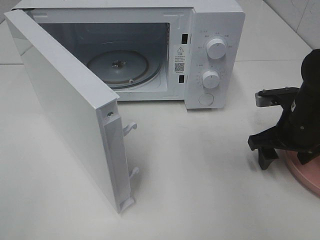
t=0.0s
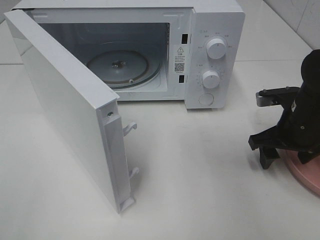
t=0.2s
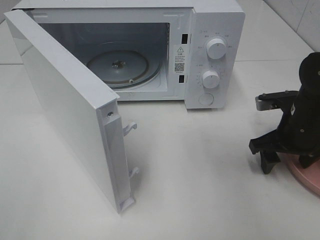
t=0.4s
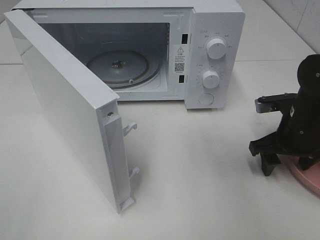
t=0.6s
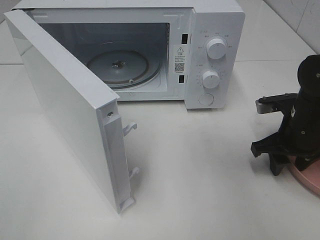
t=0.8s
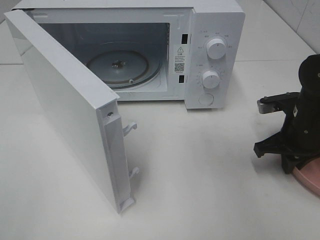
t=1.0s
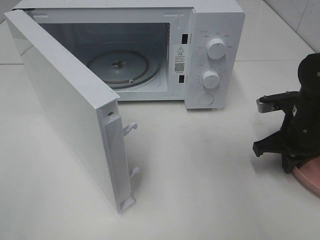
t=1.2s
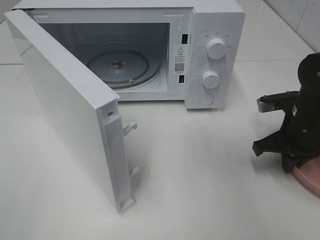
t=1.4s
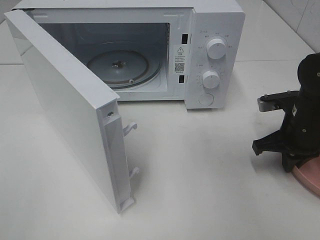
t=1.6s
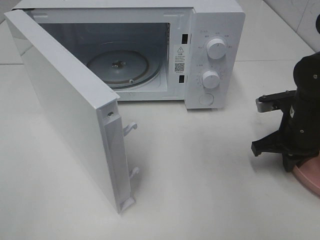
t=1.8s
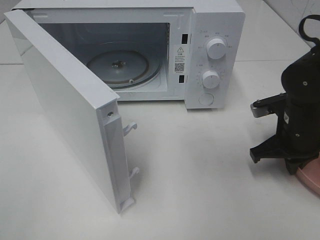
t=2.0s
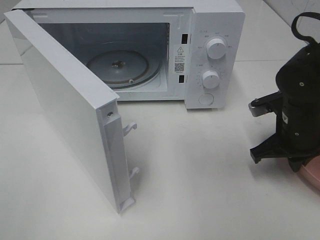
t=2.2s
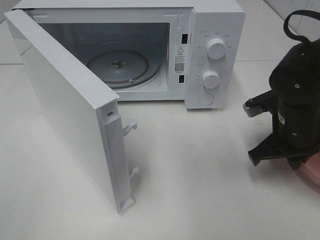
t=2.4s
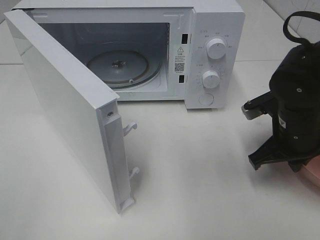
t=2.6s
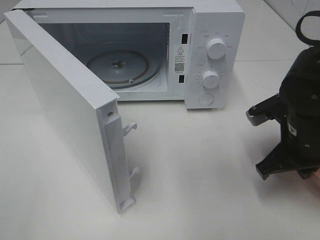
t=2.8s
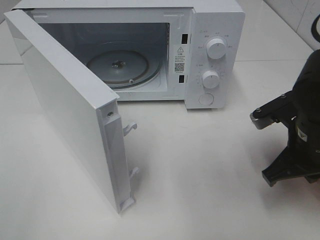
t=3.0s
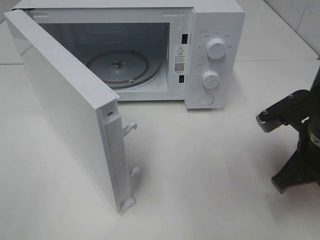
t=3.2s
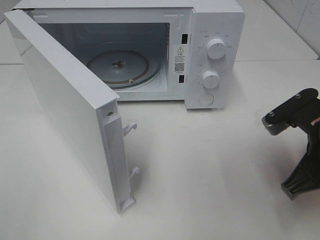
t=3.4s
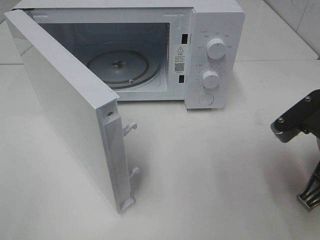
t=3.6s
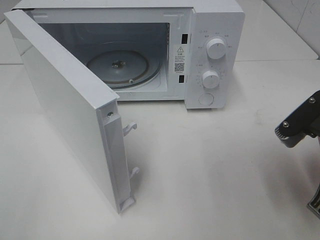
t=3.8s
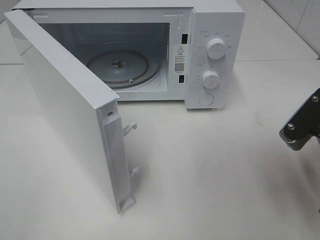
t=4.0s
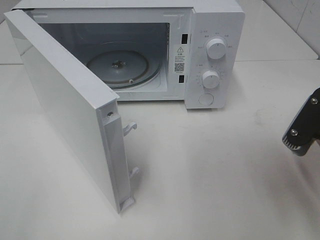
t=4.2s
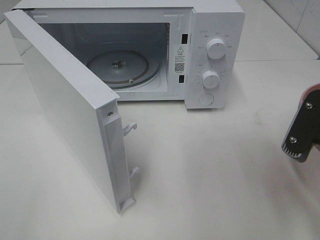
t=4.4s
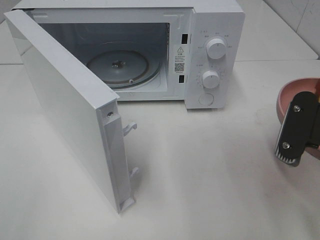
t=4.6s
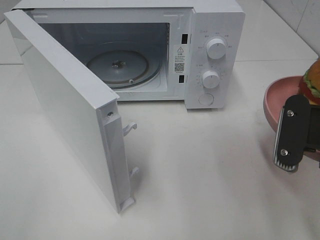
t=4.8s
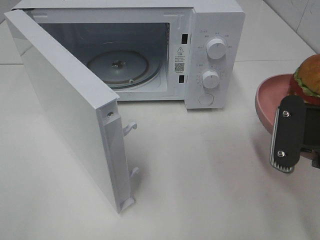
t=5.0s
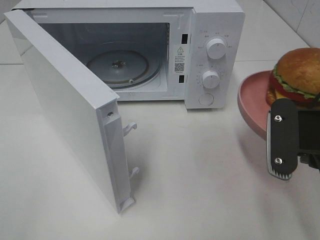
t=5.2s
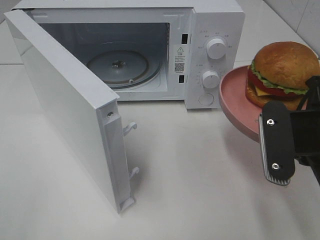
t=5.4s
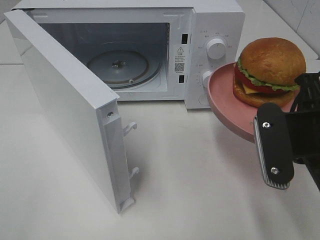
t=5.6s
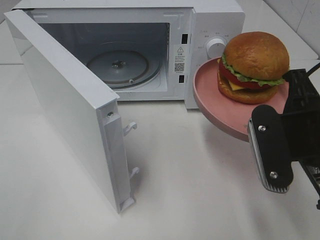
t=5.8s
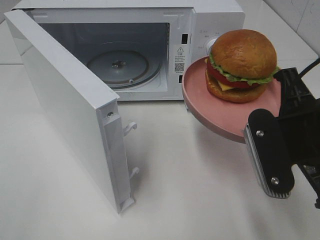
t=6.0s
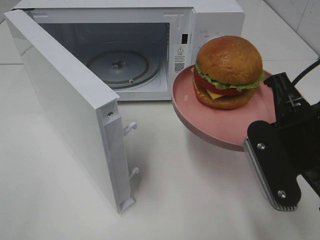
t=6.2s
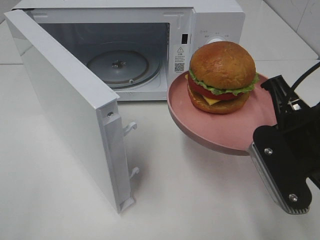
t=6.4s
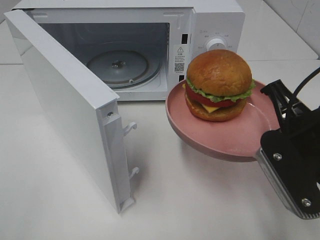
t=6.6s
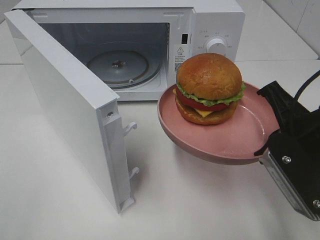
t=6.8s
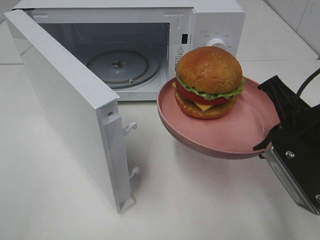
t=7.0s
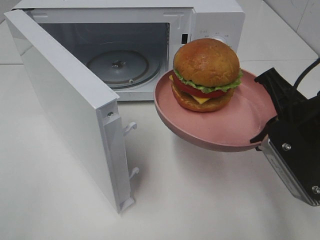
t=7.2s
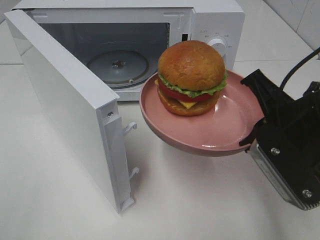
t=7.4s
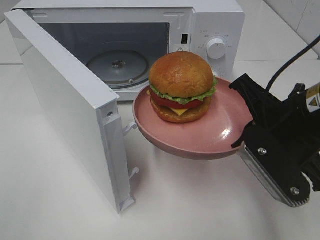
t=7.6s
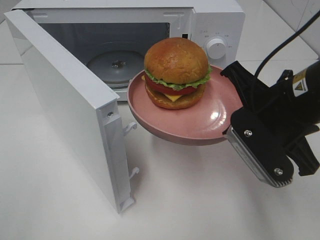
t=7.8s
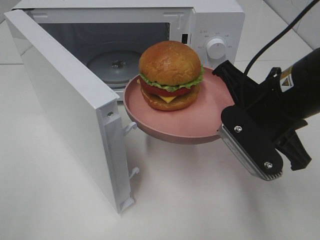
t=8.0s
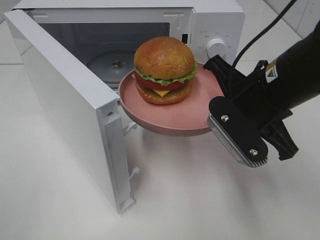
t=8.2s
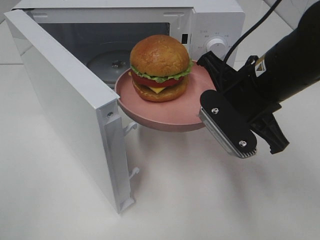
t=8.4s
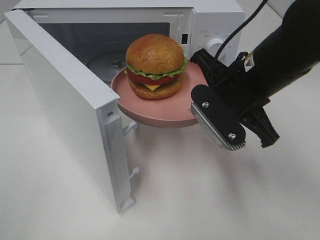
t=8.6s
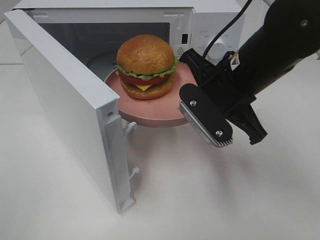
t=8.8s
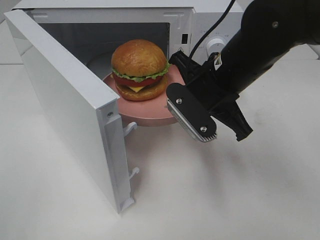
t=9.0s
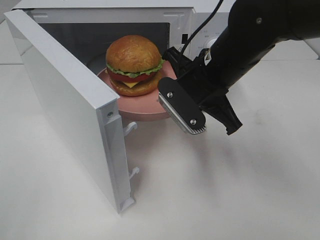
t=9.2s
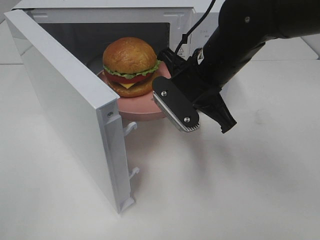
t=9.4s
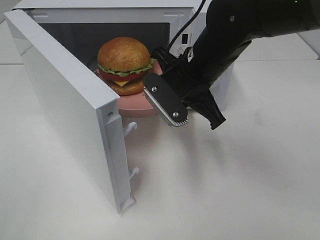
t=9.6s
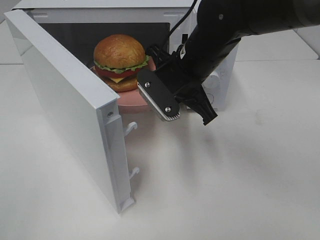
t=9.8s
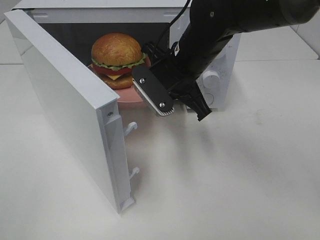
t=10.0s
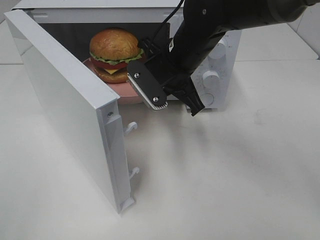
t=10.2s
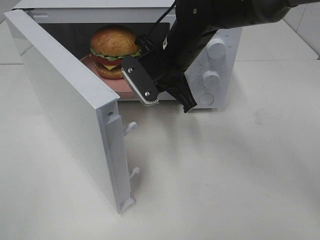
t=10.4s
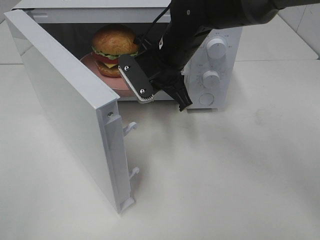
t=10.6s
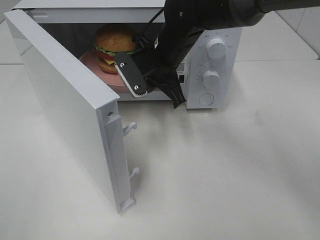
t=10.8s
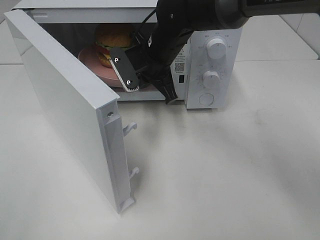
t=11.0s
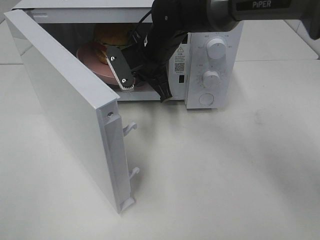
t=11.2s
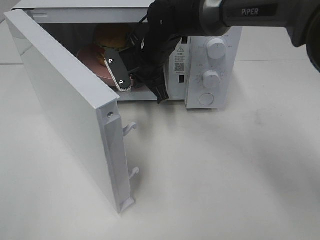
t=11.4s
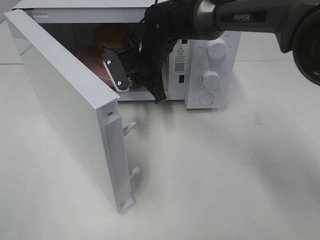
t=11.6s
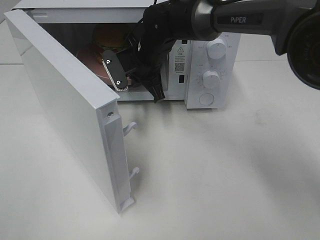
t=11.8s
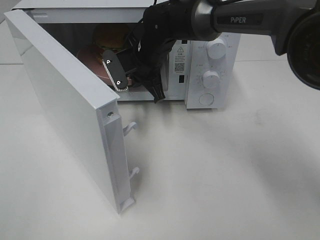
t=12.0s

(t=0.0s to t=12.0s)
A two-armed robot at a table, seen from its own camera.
Task of the whole recording: Heat the burger.
t=0.0s - t=1.6s: The right gripper closes its fingers.
t=1.6s - t=3.0s: The right gripper moves backward, about 5 cm.
t=3.0s - t=4.4s: The right gripper travels backward and upward by about 10 cm.
t=7.6s - t=9.0s: The right gripper moves forward and to the left, roughly 10 cm.
t=9.0s - t=10.4s: The right gripper goes about 10 cm forward and to the left.
t=10.4s - t=12.0s: The right gripper shifts approximately 5 cm forward.

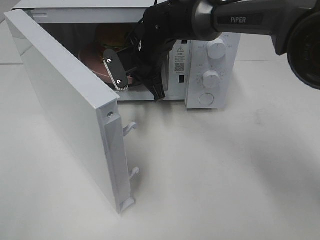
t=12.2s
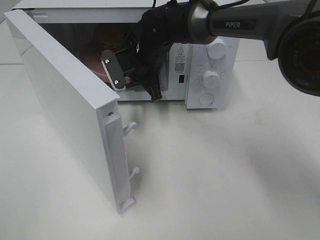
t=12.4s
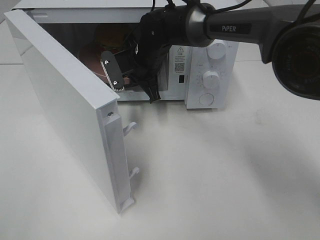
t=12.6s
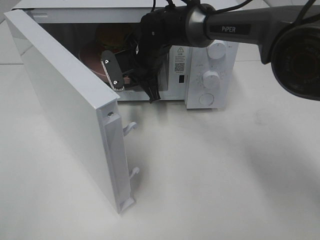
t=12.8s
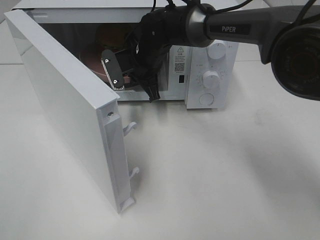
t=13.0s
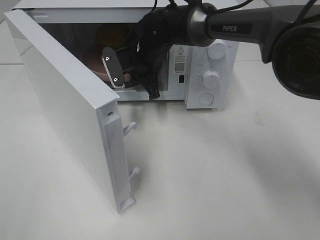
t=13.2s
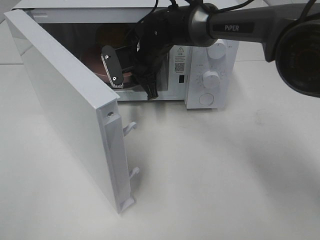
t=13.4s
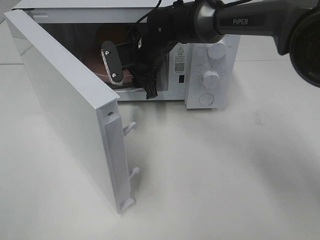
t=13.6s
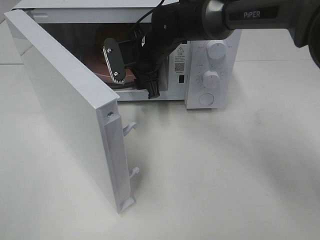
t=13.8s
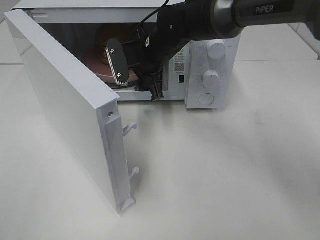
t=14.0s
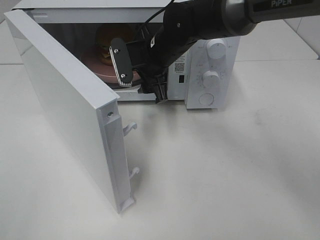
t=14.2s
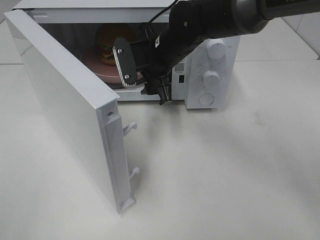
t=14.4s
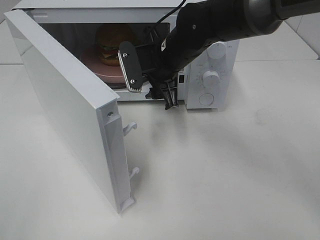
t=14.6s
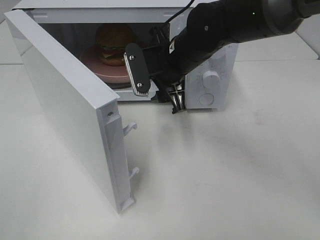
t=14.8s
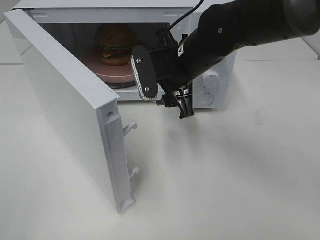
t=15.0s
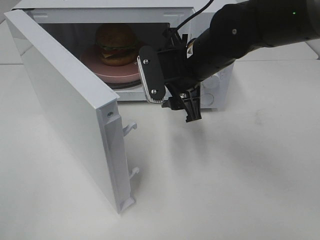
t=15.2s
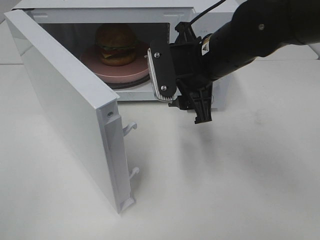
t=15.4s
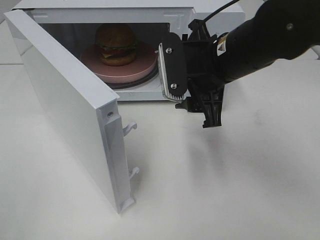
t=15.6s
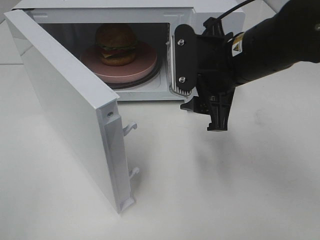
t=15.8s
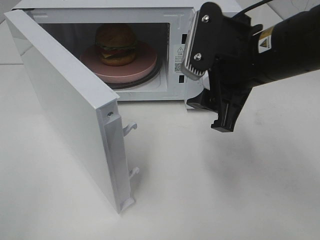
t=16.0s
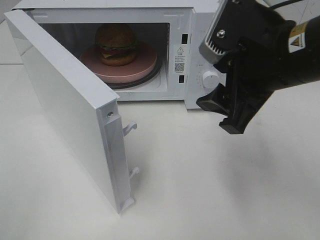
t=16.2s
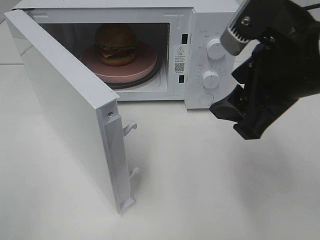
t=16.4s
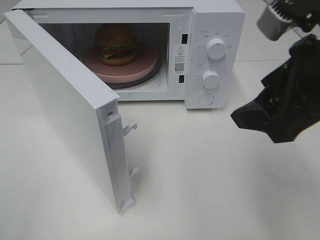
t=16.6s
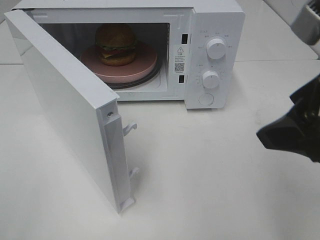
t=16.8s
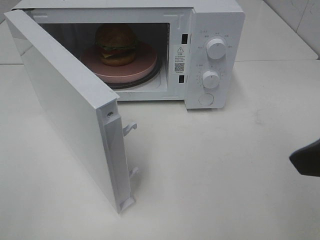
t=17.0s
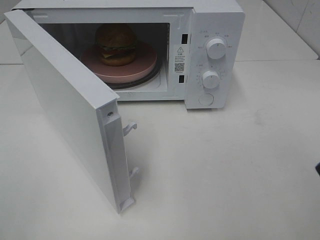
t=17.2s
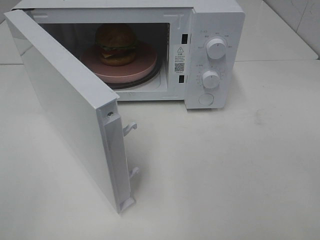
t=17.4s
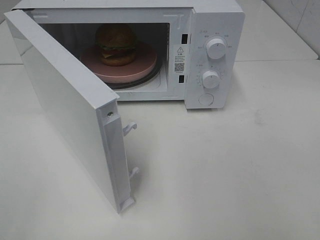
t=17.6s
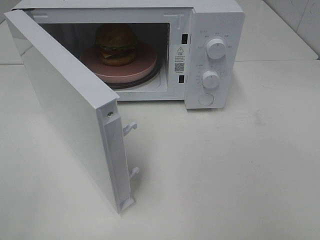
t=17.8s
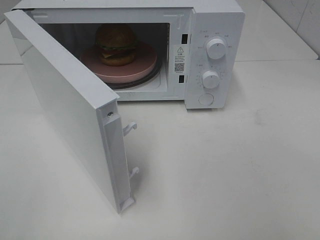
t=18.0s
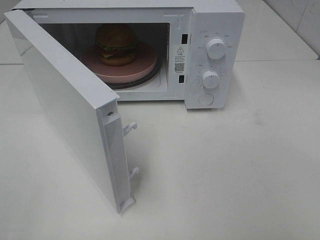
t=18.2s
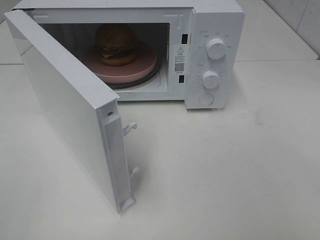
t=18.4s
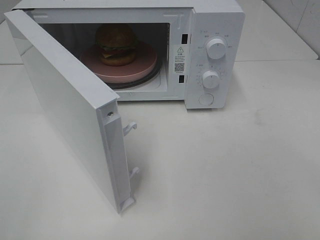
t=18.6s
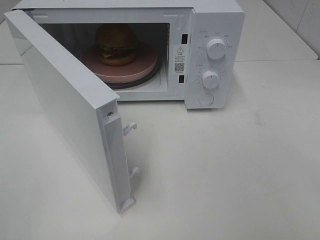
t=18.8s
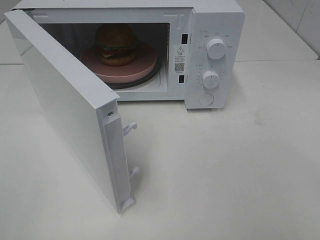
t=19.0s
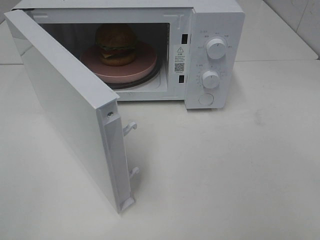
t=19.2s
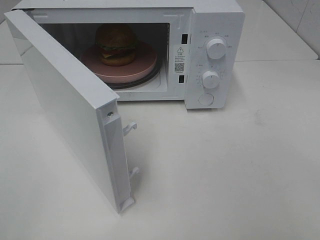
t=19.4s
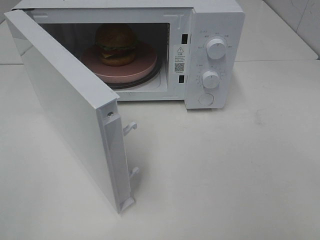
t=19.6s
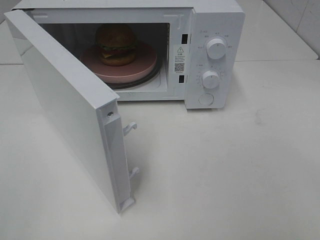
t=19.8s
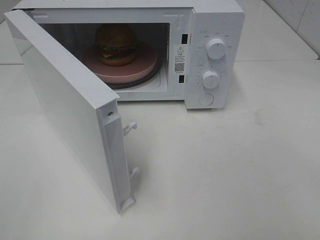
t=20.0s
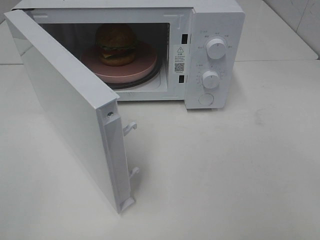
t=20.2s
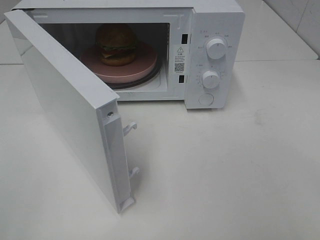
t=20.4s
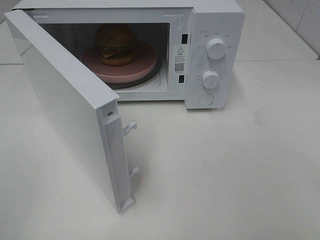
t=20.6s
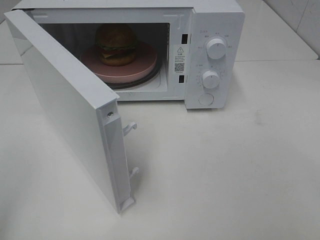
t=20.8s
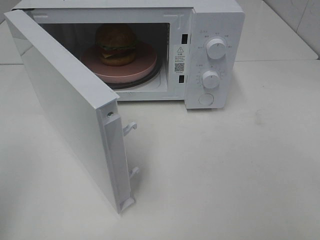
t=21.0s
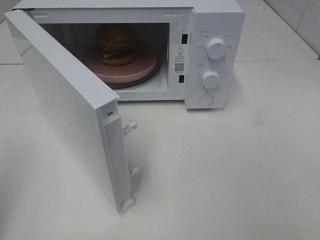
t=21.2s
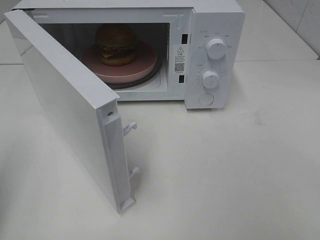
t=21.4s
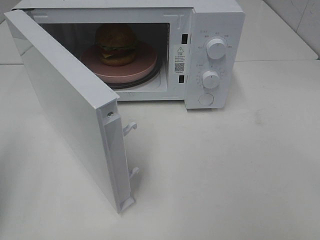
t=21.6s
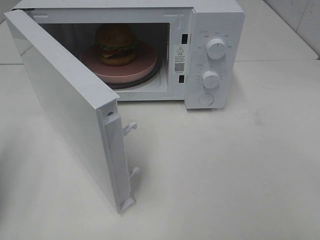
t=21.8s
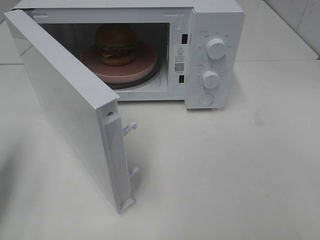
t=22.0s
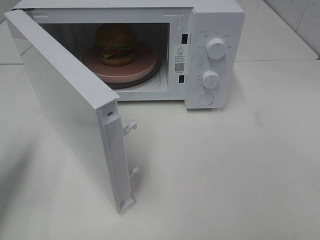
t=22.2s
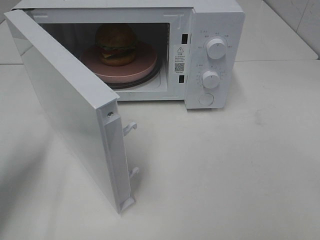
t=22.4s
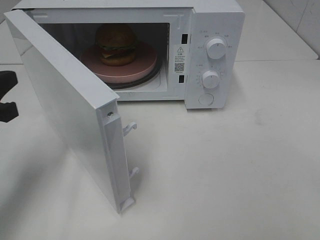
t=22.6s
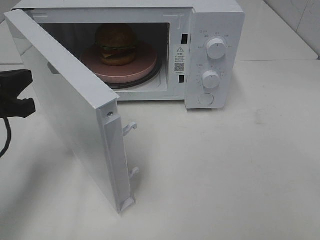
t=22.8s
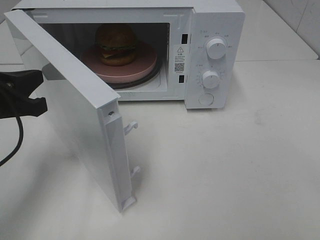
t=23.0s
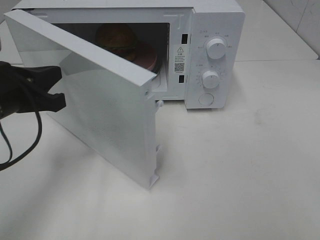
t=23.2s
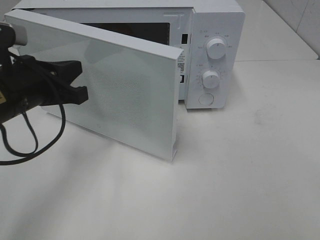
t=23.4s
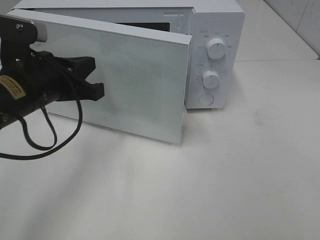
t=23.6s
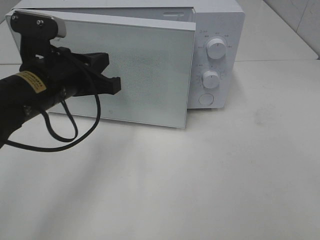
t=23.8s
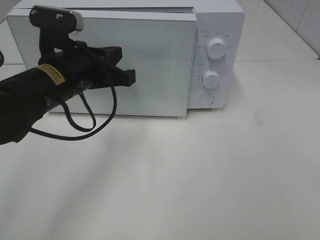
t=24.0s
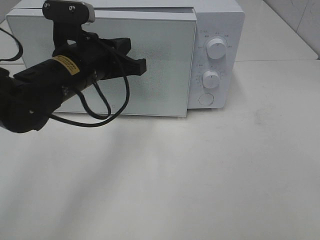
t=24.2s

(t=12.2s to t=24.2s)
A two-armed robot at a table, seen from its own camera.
Task of the whole recording: Heat the burger.
t=12.2s - t=13.8s: The right gripper opens up.
t=13.8s - t=15.2s: The right gripper is displaced backward and to the right by about 15 cm.
t=15.2s - t=16.6s: The right gripper shifts roughly 20 cm backward, to the right and upward.
t=16.6s - t=18.2s: The right gripper heads backward and to the right, covering some 20 cm.
t=21.2s - t=22.6s: The left gripper shifts about 15 cm forward, downward and to the right.
t=22.6s - t=24.2s: The left gripper shifts about 20 cm to the right and forward.
